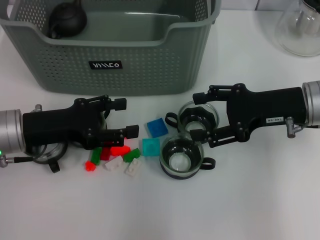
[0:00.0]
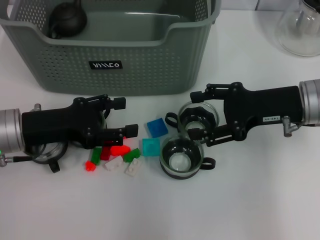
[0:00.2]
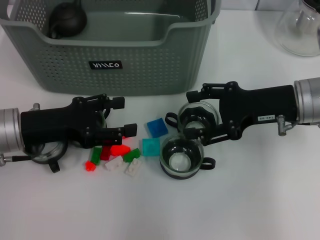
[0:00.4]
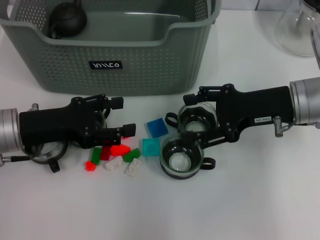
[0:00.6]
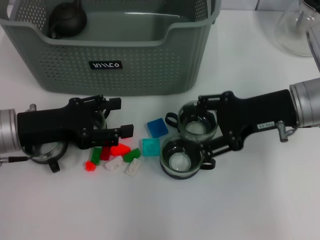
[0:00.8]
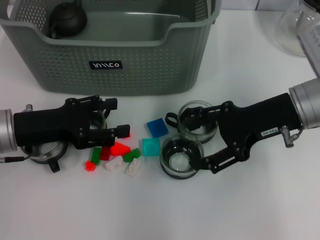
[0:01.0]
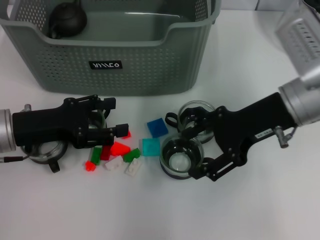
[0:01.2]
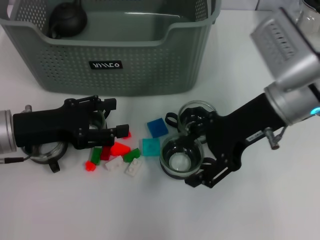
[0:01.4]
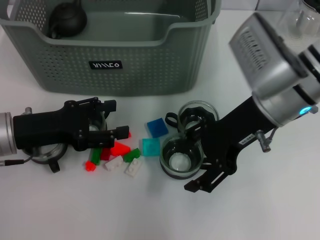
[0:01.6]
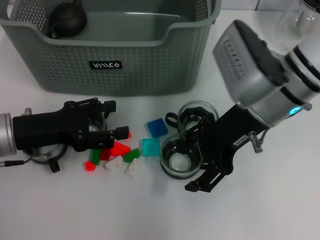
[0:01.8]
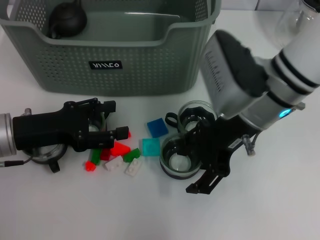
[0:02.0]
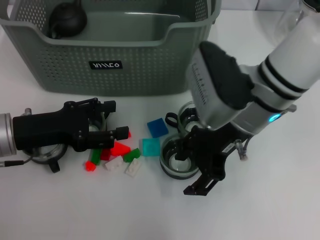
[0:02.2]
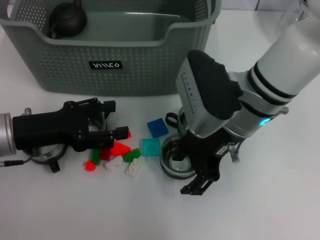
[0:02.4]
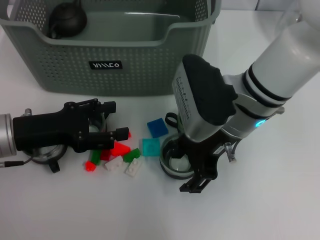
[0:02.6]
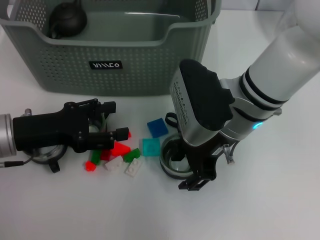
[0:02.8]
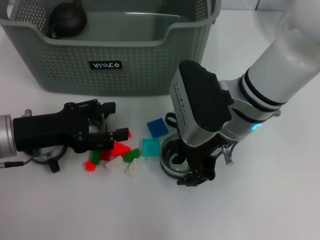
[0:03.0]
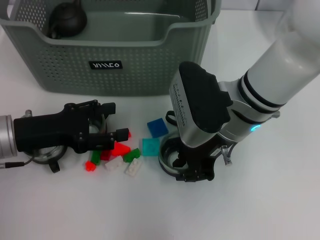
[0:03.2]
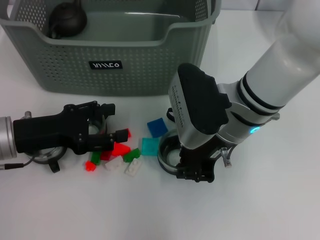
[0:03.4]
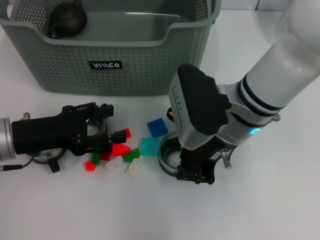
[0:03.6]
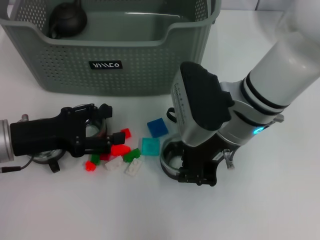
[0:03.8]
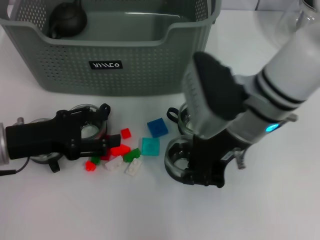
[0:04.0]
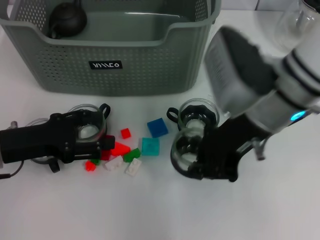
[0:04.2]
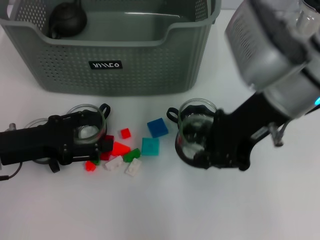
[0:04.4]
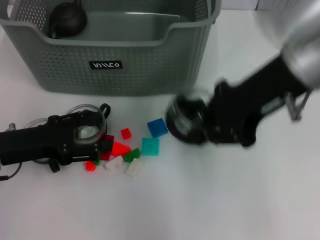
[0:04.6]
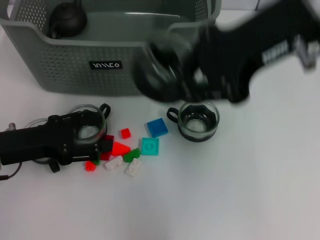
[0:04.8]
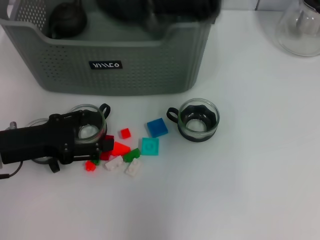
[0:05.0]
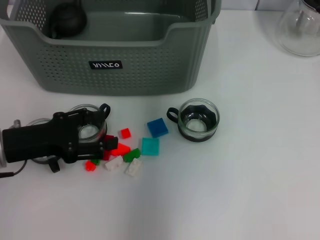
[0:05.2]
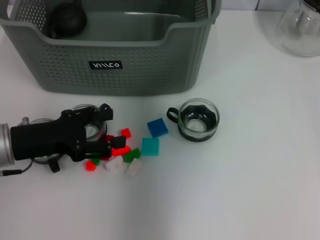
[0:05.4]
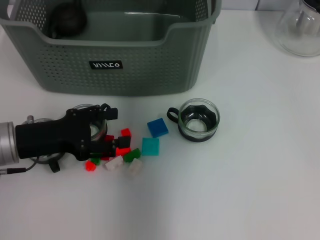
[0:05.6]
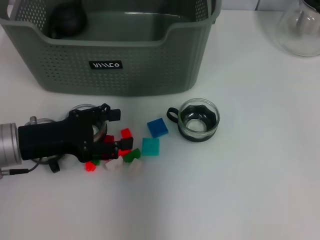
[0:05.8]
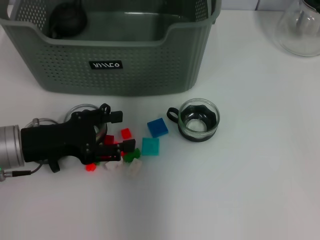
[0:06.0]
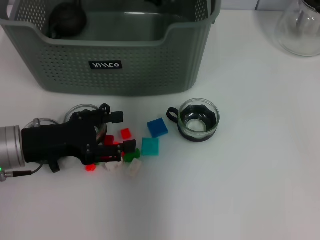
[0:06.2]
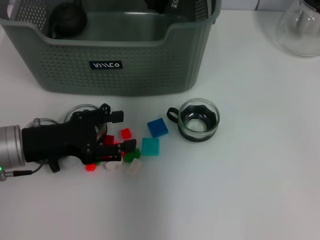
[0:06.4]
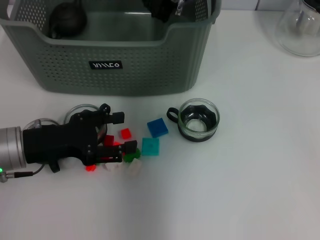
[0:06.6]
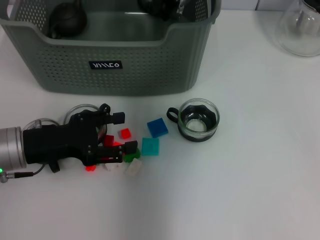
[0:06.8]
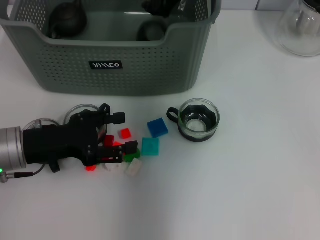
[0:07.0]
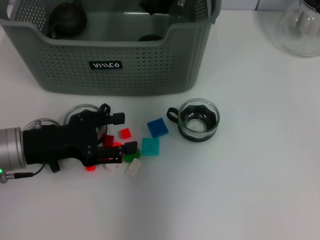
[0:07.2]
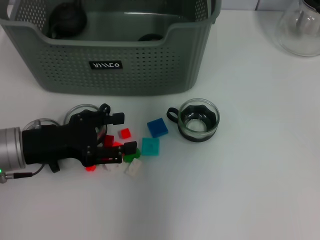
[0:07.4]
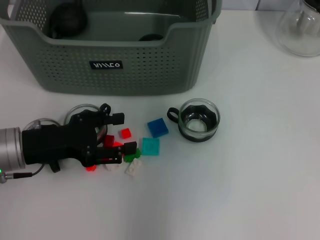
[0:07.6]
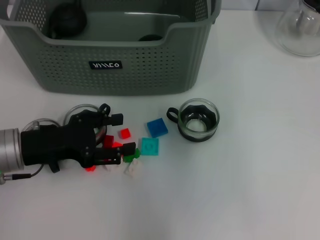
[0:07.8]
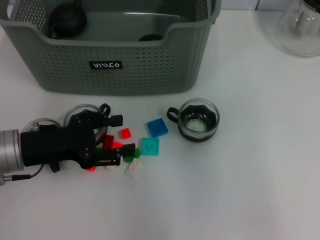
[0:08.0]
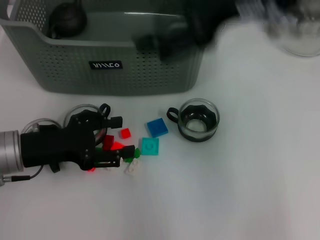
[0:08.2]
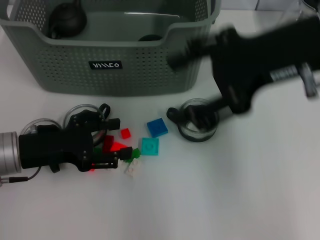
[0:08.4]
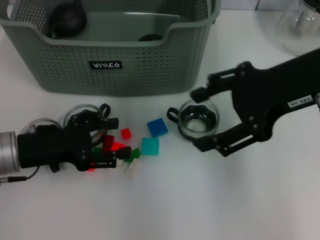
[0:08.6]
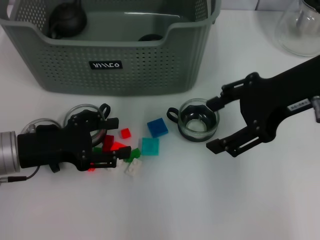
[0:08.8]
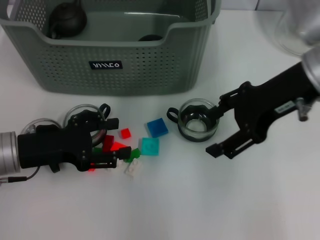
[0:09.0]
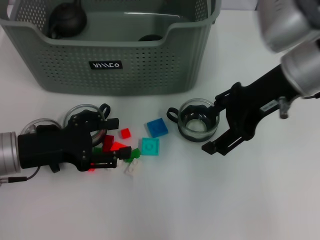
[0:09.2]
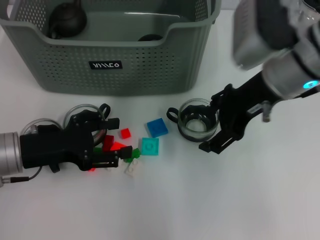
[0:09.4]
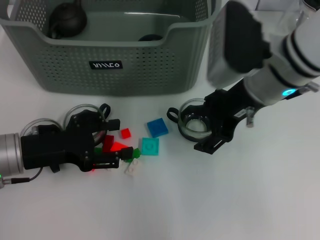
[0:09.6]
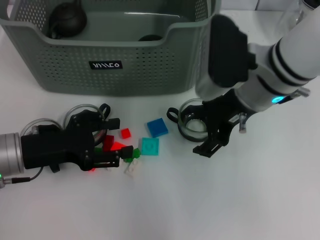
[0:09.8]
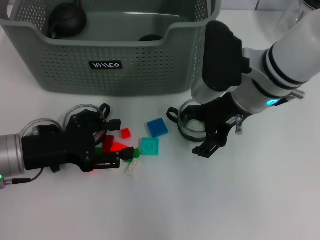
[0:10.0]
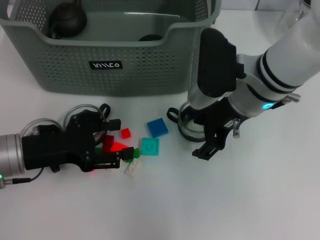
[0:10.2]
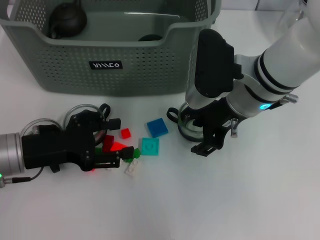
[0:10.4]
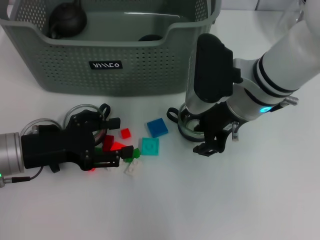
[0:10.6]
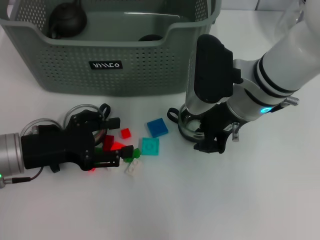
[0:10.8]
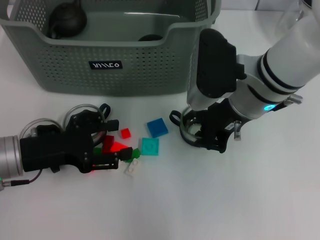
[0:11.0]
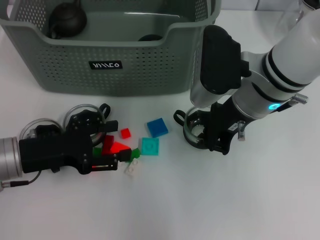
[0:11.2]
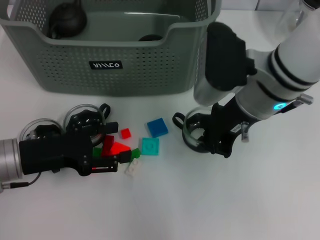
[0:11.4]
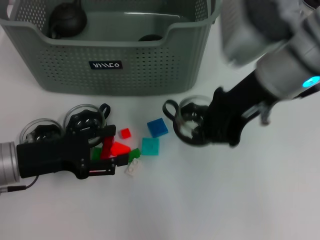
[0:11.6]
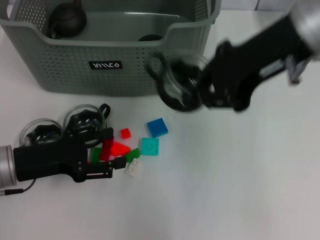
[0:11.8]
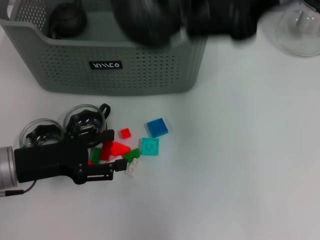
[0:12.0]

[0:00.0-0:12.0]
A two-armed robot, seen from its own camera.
Task of the whole recording: pick up the teacup on the table and place it into the storage bin, pick up the block on the table and place it into the storage bin.
Step, 0:00.0 to 0:03.8: Grasp the cup with right gripper.
Step, 0:04.0 to 0:06.8: Place the cup in the storage box with right gripper.
Step, 0:07.2 to 0:11.0: Grasp the cup with right gripper.
0:00.0 to 0:01.6: The right gripper is displaced to the left by roughly 10 cm.
0:01.6 to 0:03.0: The right gripper is displaced to the left by some 5 cm.
0:03.0 to 0:04.4: The right gripper travels upward and to the right by approximately 10 cm, and closes its fingers.
0:04.4 to 0:06.0: The right gripper is displaced forward and to the left by roughly 20 cm.
0:06.0 to 0:07.6: The right gripper shifts roughly 5 cm upward, and opens up.
0:07.6 to 0:09.0: The right gripper is displaced backward, to the right and downward by some 20 cm.
0:09.0 to 0:10.4: The right gripper goes roughly 10 cm downward and to the left.
0:10.4 to 0:12.0: The right gripper is displaced upward by approximately 20 cm, and closes its fingers.

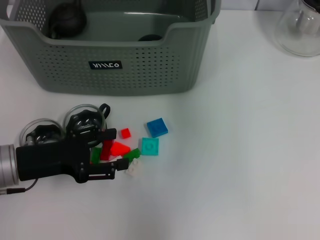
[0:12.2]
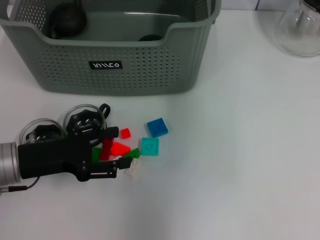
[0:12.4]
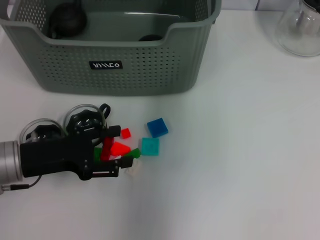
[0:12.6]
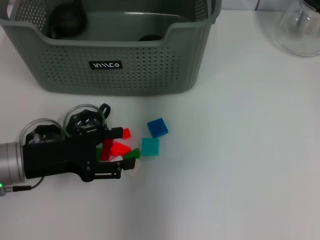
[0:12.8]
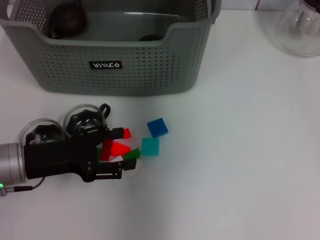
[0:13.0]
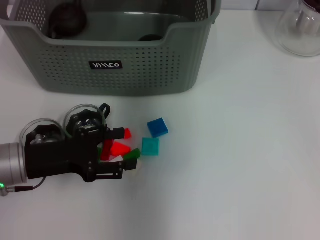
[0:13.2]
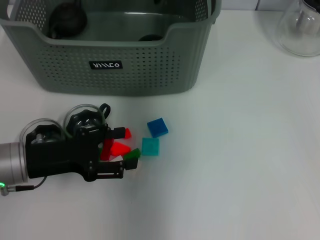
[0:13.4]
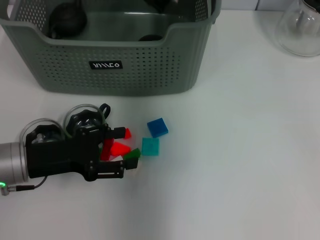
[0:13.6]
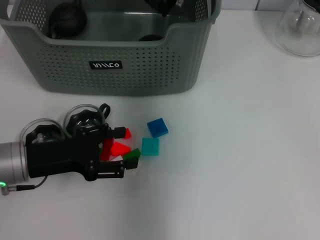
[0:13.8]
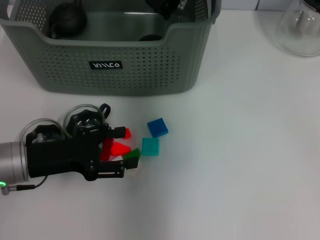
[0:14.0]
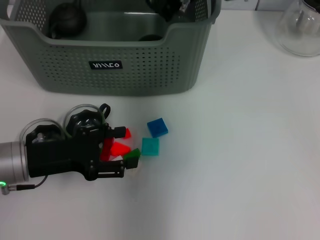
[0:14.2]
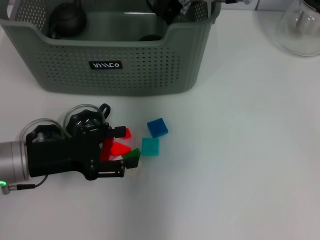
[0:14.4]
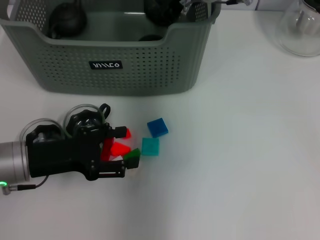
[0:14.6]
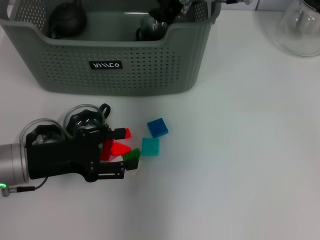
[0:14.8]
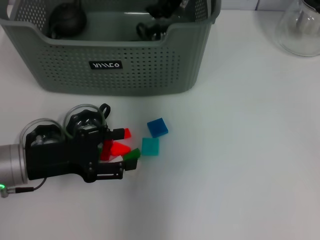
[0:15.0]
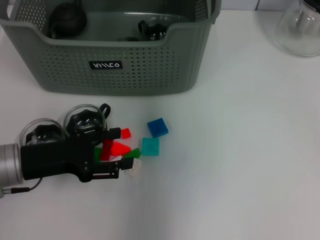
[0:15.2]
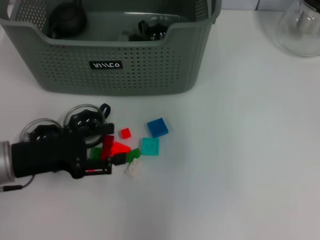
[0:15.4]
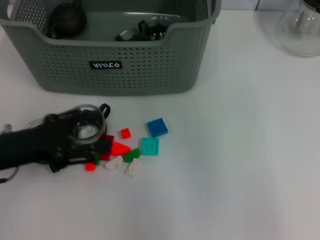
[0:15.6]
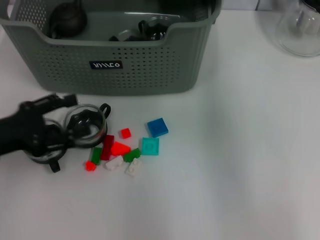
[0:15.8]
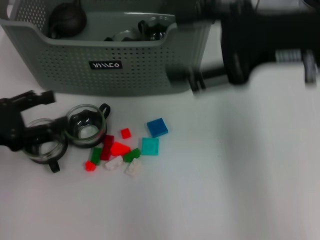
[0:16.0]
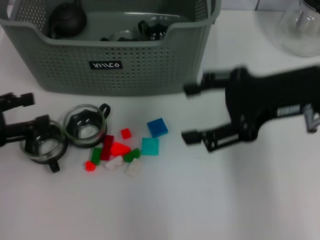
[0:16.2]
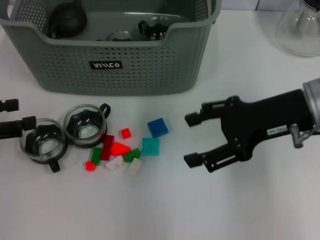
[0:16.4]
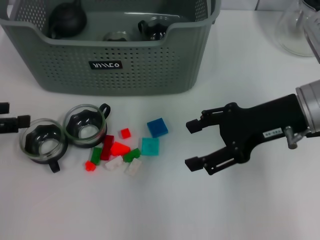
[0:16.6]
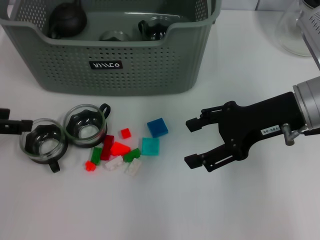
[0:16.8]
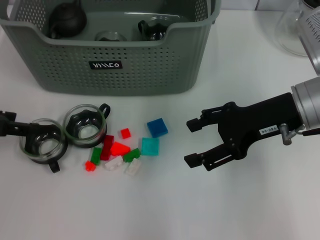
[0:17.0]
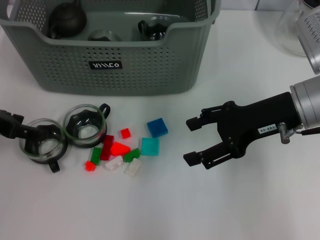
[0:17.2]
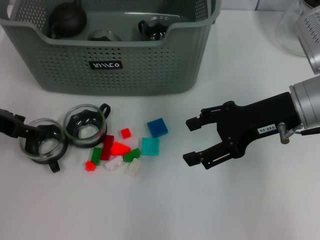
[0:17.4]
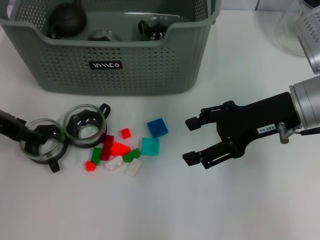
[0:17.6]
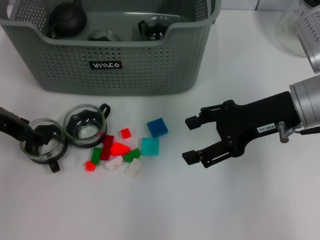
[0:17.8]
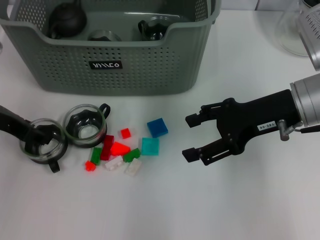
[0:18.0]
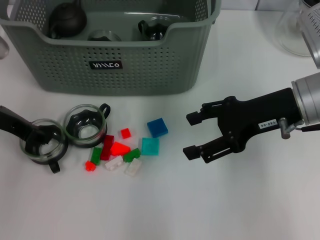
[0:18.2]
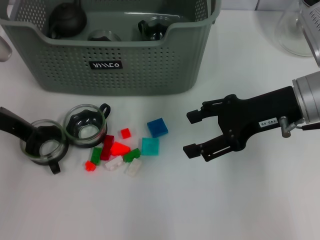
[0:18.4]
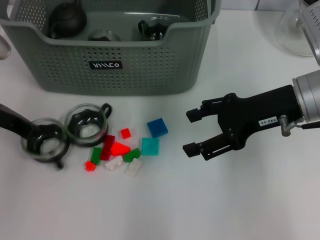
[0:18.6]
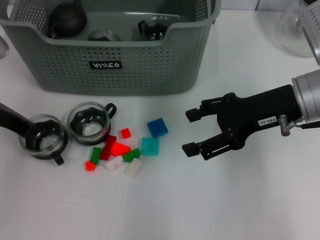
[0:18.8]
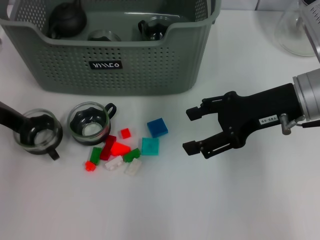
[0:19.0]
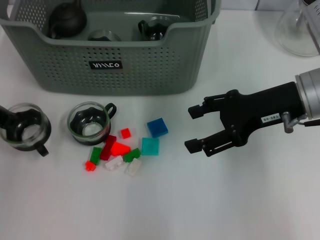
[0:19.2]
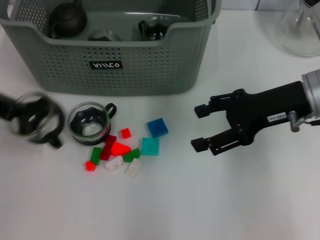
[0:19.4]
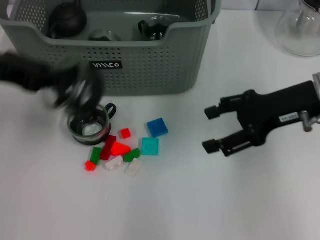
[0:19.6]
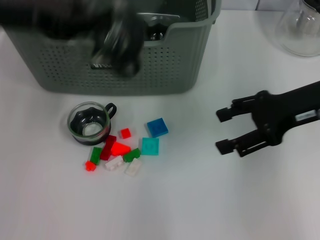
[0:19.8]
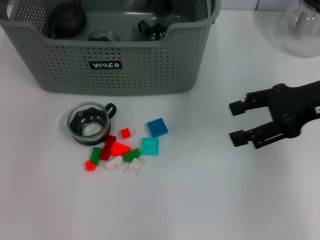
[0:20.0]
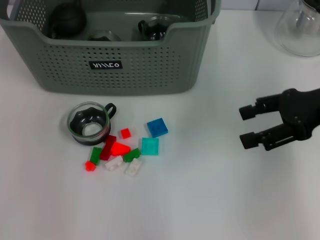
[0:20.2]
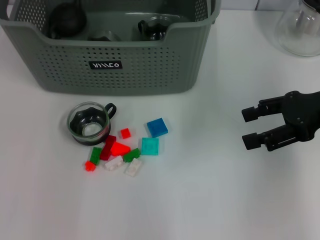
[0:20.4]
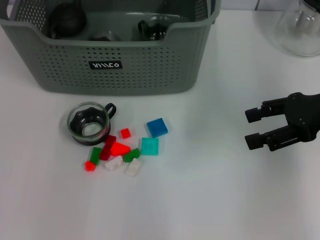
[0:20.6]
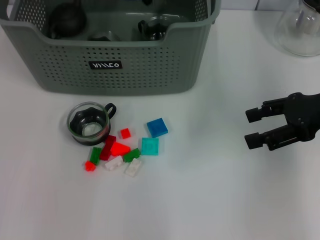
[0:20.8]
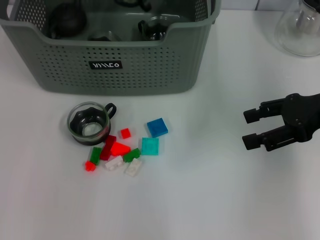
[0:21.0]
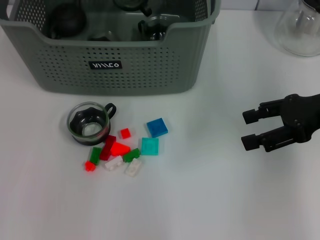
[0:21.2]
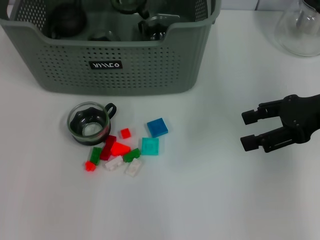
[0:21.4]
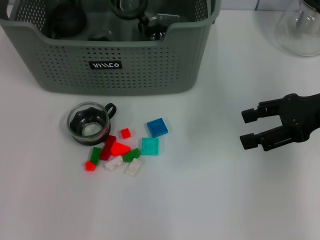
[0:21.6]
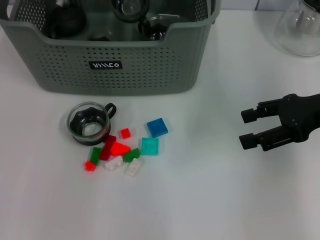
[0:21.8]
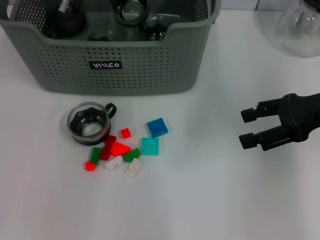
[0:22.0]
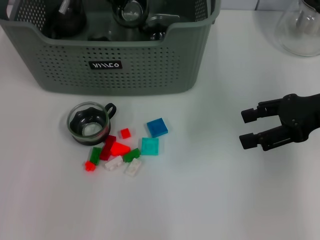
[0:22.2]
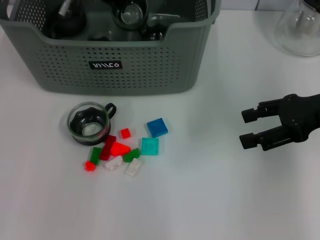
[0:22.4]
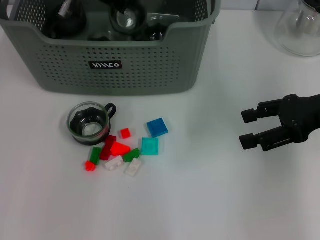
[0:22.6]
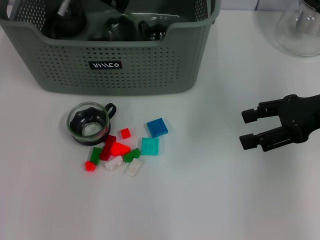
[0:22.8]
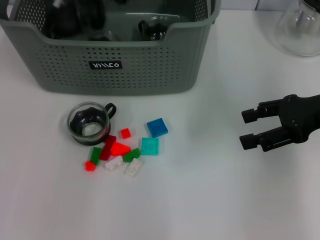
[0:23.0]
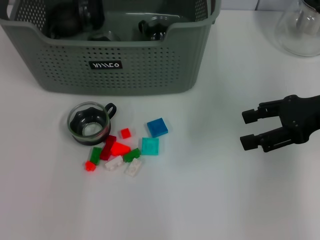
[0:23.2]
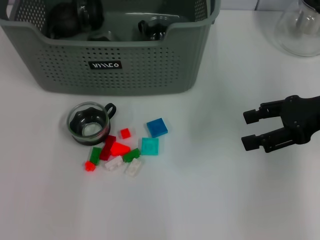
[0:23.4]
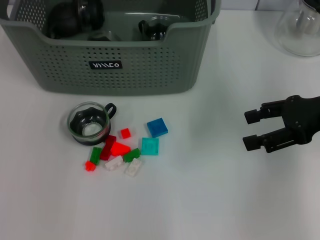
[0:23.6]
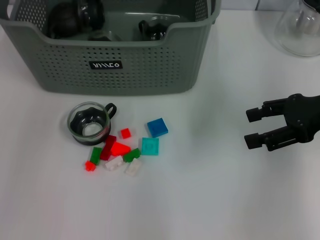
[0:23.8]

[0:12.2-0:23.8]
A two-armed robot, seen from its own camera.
Task of the whole recording: pick up the teacup on the table and place it into the storage bin, pick up the block on the table and place it into the storage bin.
Step, 0:12.2 to 0:15.0: Place the cup in the storage box with right gripper.
Step, 0:15.2 to 0:18.6: Grasp the cup with left gripper.
Step, 0:18.8 to 0:22.8: Place the cup in the storage box with left gripper.
0:12.2 to 0:13.6: The right gripper moves downward, to the left and forward, about 20 cm.
0:13.6 to 0:15.0: The right gripper opens up.
0:15.0 to 0:16.6: The left gripper heads to the left and upward, covering about 15 cm, while the right gripper goes some 20 cm backward and to the right, and opens its fingers.
0:16.6 to 0:18.0: The left gripper moves to the right and forward, approximately 10 cm.
0:18.0 to 0:19.4: The left gripper goes some 5 cm upward, and closes.
0:19.4 to 0:21.0: The right gripper travels to the right by roughly 5 cm. The left gripper shifts about 25 cm forward and to the right.
0:21.0 to 0:22.4: The left gripper travels downward by some 5 cm.
0:22.4 to 0:23.8: The left gripper moves upward, backward and to the left, approximately 20 cm, and opens.
